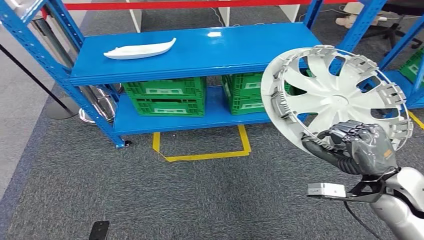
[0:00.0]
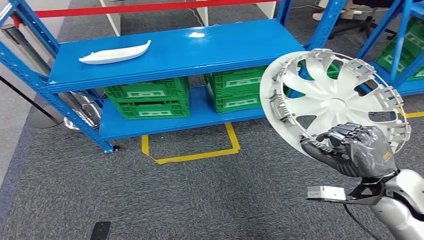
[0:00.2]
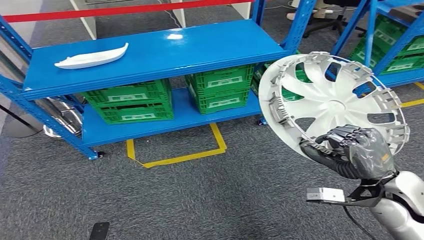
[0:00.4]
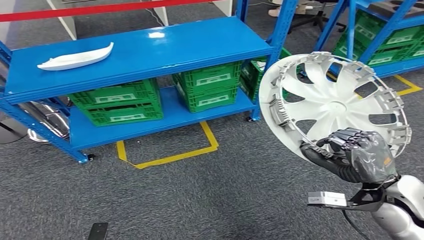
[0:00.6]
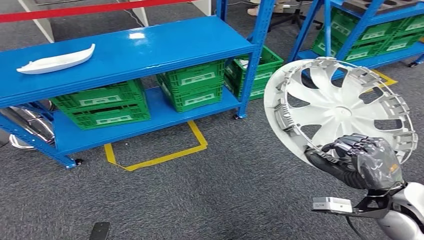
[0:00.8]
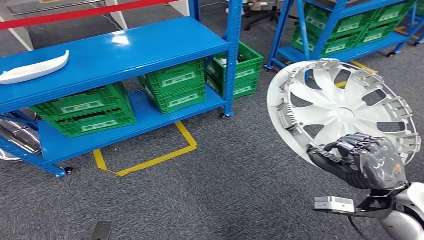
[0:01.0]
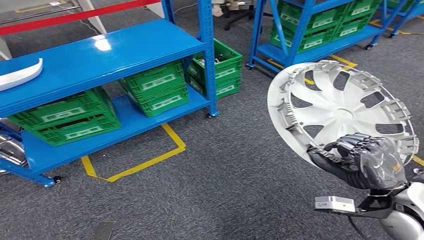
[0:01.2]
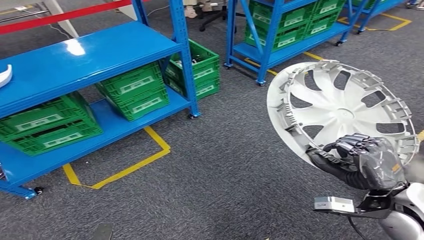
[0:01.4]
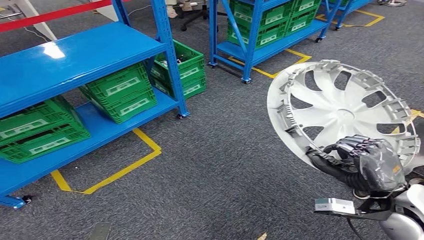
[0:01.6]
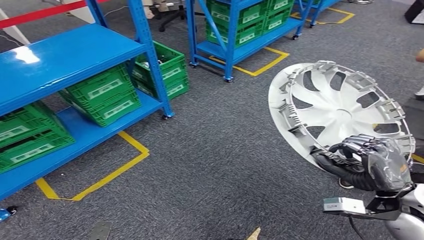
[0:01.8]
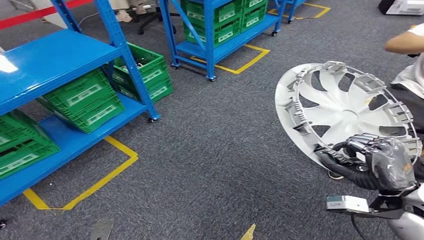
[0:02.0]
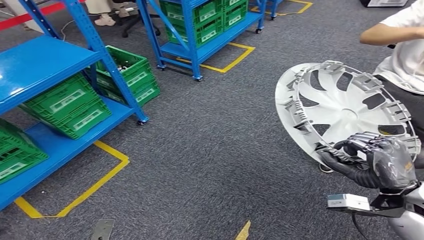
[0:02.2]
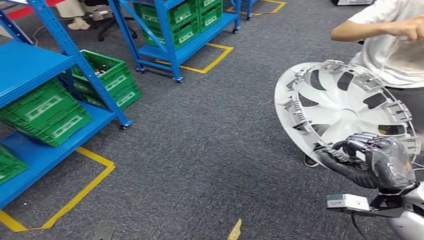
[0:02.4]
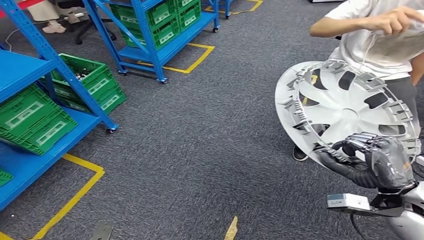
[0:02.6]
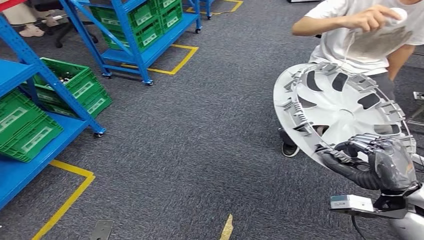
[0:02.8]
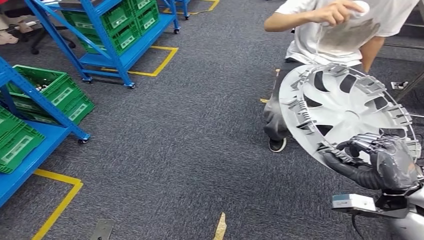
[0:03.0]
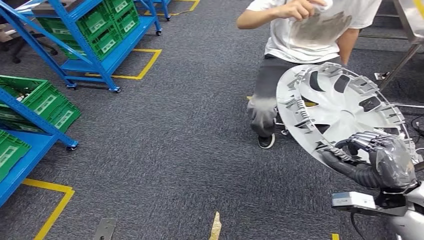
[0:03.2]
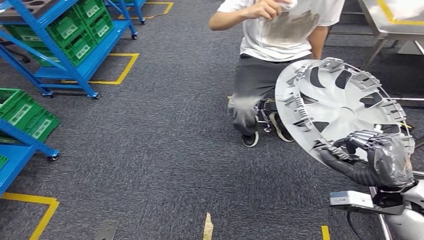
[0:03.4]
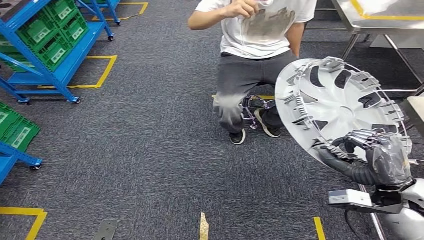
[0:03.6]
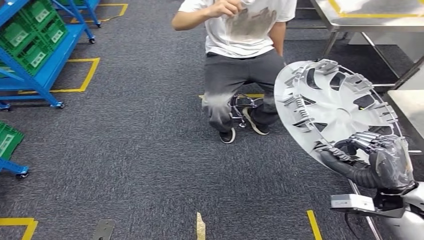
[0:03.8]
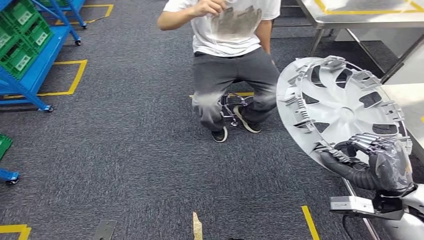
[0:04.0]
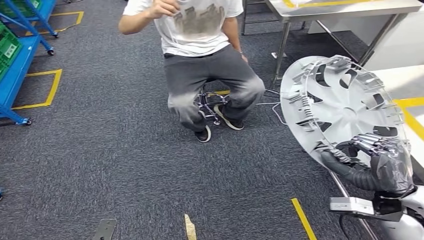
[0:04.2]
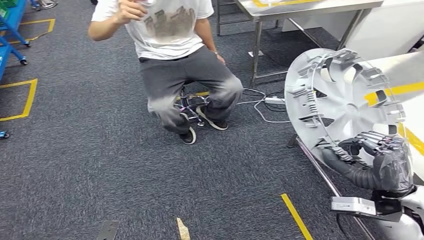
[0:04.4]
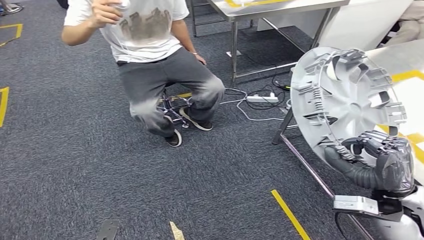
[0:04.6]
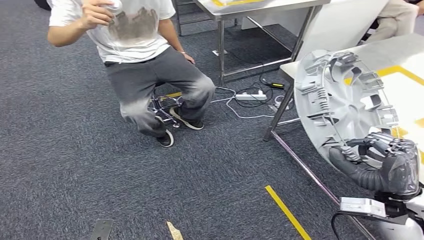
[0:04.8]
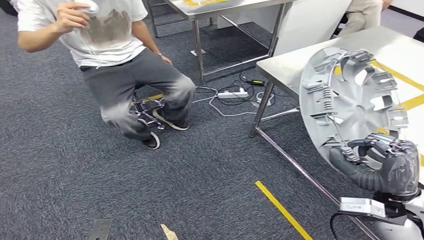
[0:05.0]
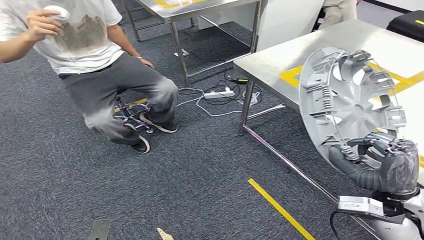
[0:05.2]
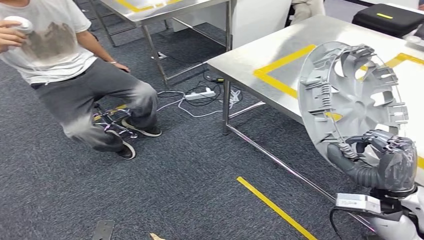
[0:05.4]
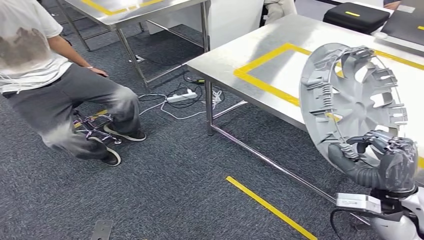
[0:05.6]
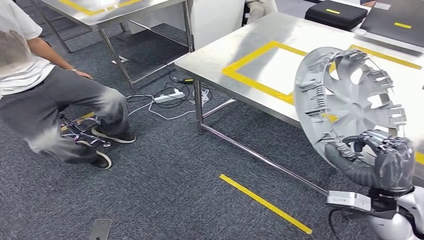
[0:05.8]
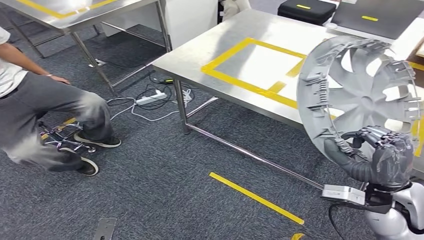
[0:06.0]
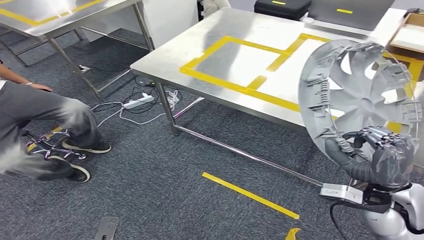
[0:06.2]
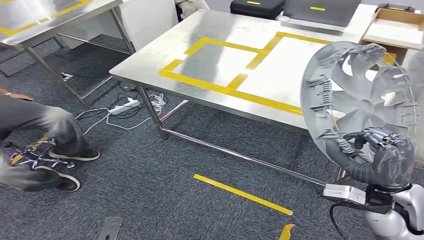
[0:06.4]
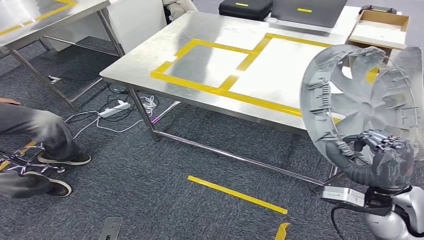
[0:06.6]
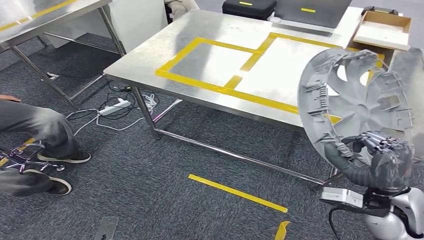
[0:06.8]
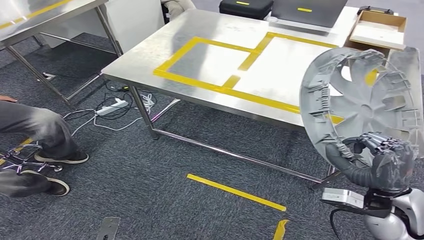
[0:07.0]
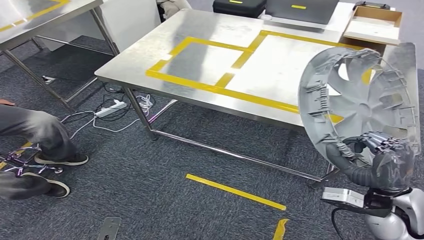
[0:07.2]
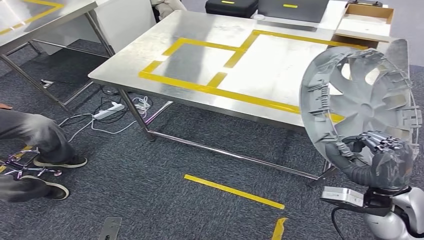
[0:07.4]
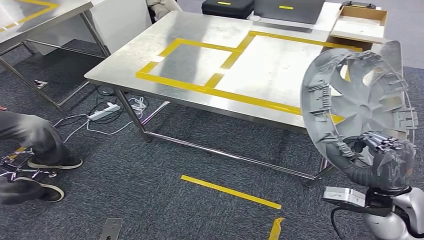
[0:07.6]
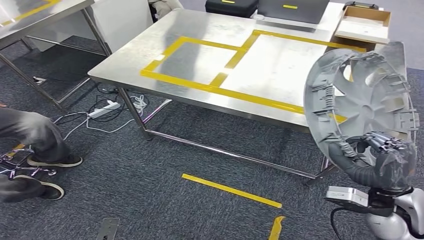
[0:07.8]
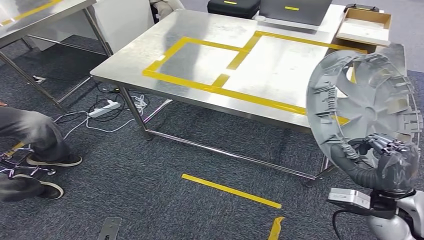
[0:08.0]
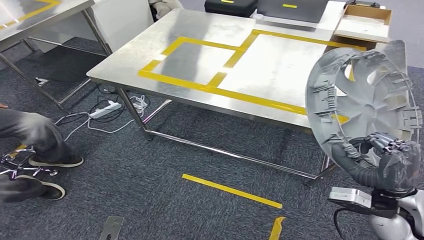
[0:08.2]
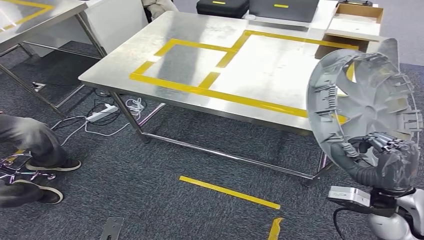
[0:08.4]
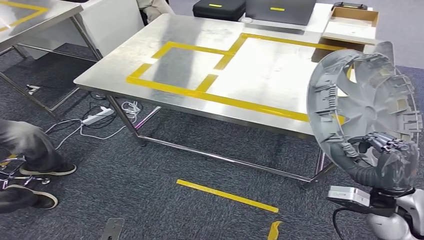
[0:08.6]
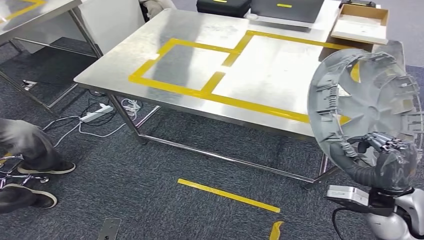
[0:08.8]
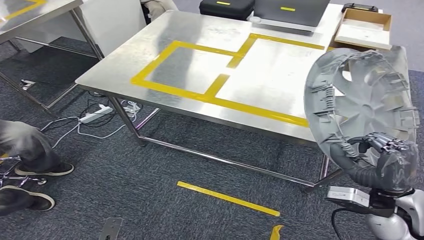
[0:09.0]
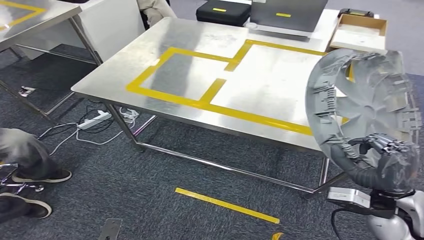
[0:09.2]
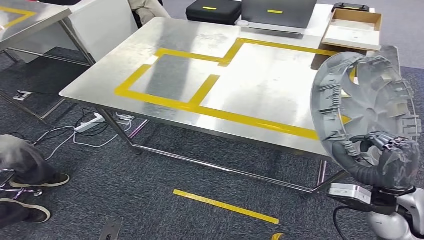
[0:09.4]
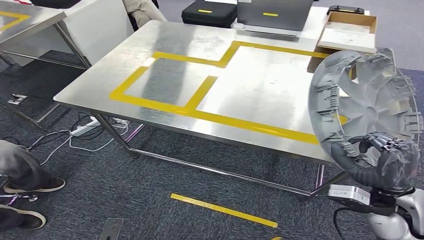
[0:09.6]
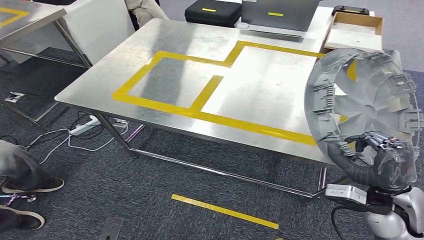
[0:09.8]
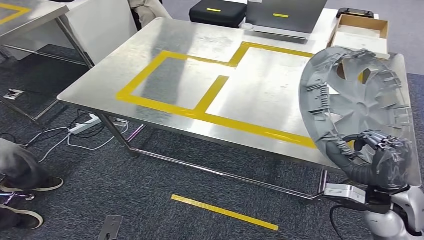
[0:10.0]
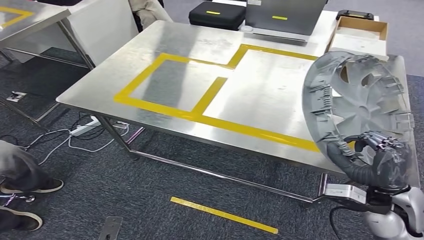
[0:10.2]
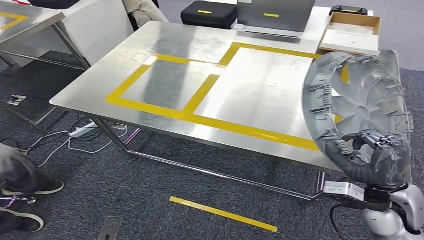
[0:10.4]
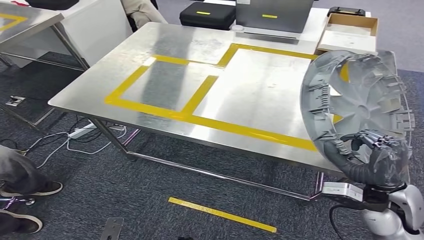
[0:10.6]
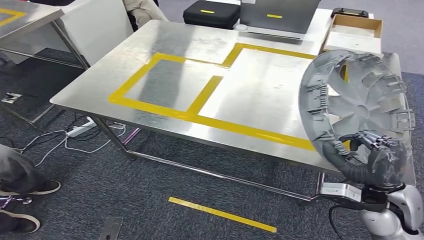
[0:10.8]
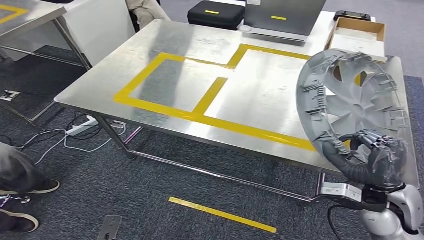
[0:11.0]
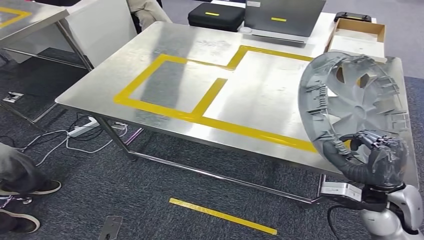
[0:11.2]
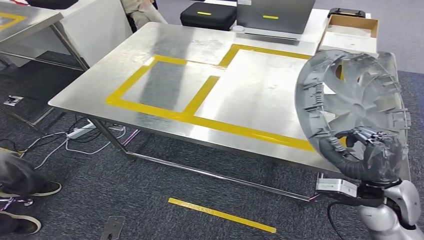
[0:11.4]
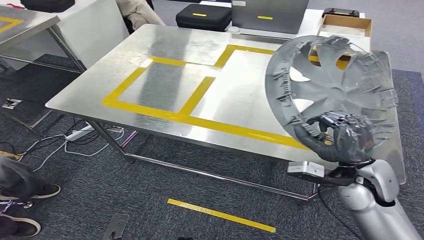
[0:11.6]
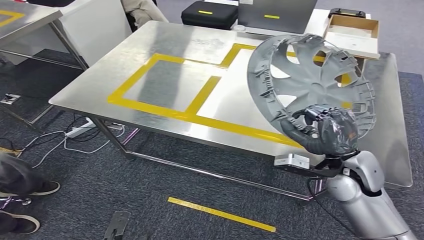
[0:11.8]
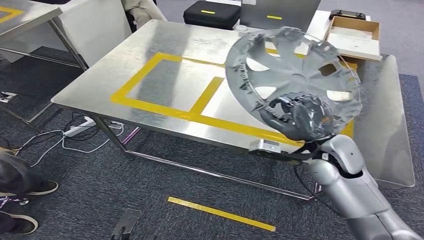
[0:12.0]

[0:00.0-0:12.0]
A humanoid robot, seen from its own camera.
Step, 0:00.0 to 0:08.4: Bring the small component to the front of the workbench.

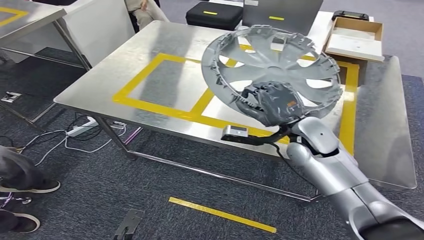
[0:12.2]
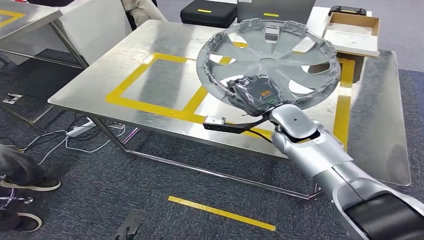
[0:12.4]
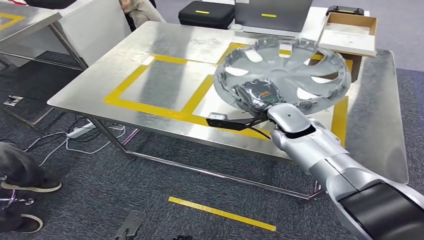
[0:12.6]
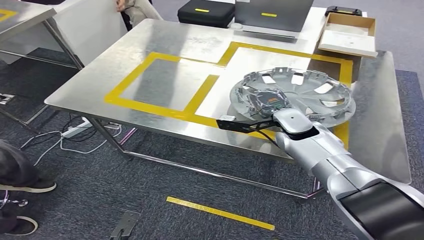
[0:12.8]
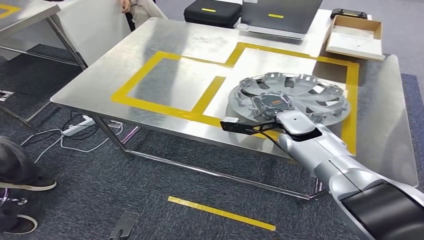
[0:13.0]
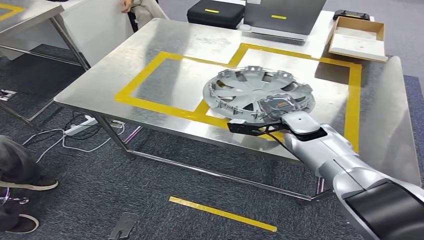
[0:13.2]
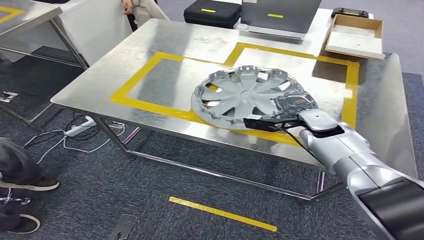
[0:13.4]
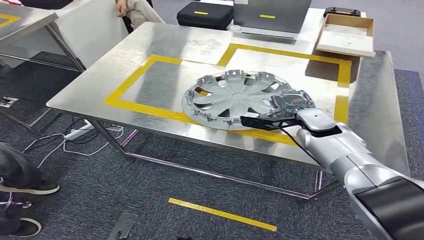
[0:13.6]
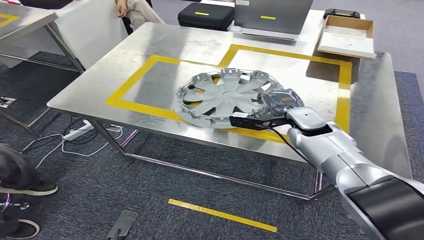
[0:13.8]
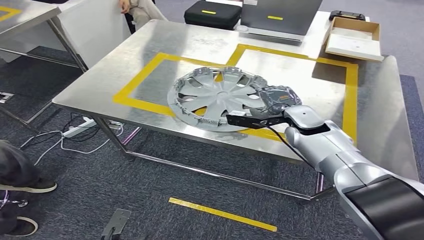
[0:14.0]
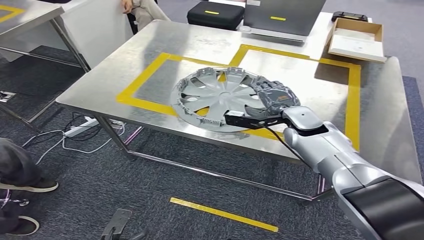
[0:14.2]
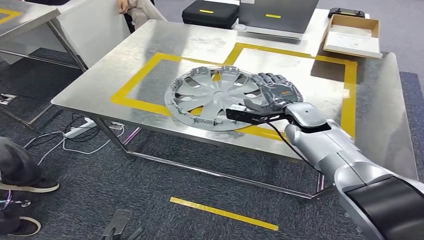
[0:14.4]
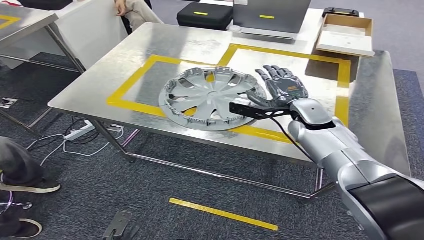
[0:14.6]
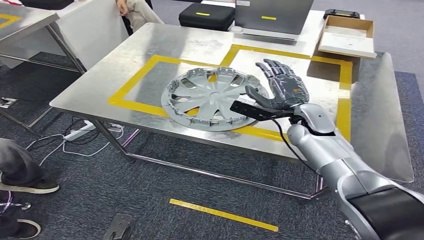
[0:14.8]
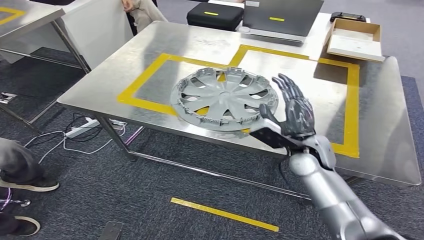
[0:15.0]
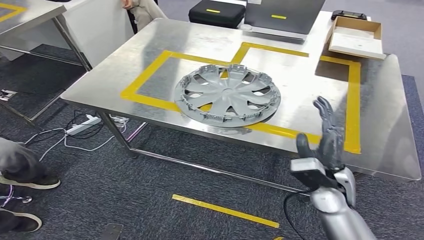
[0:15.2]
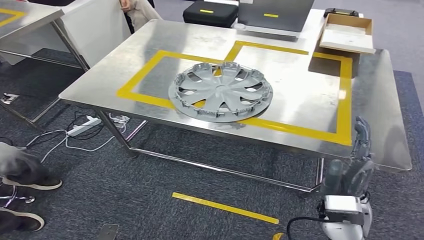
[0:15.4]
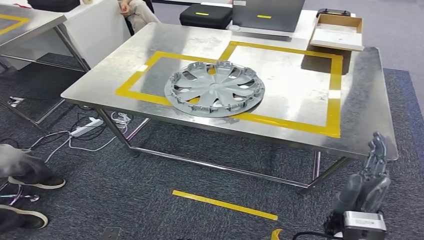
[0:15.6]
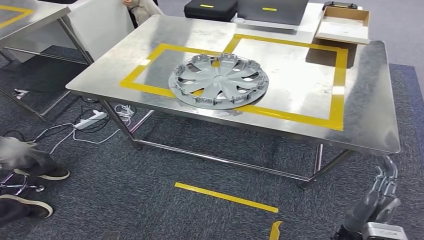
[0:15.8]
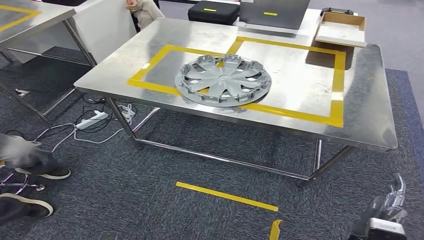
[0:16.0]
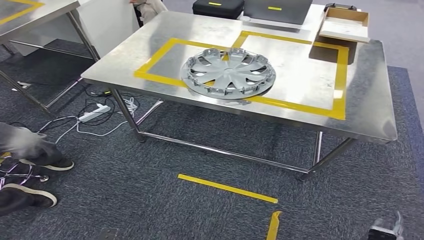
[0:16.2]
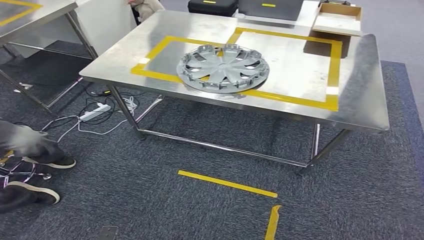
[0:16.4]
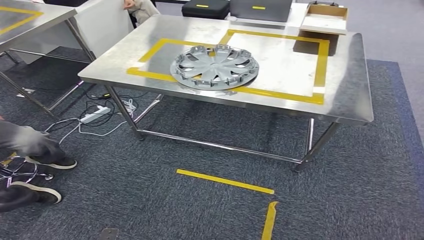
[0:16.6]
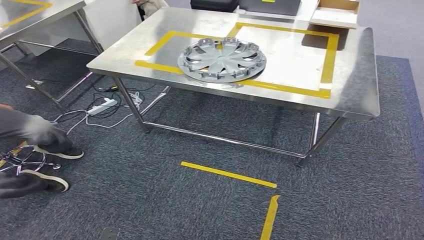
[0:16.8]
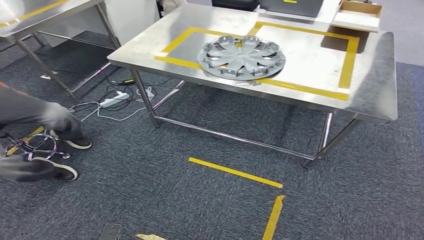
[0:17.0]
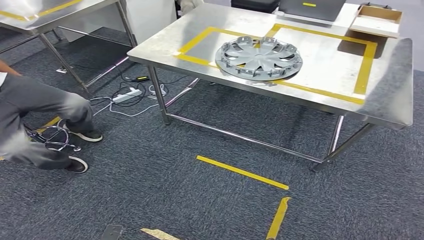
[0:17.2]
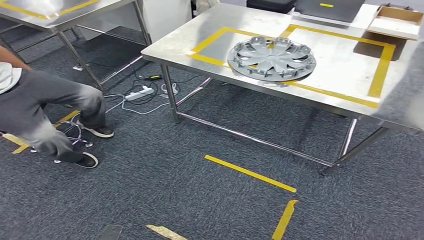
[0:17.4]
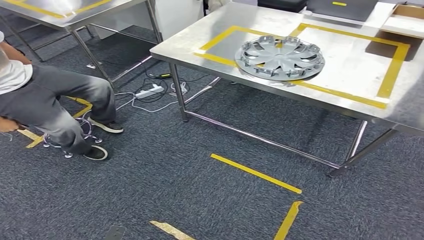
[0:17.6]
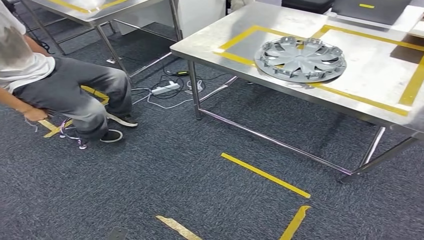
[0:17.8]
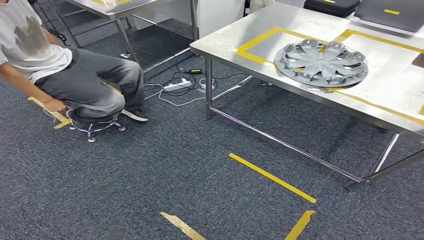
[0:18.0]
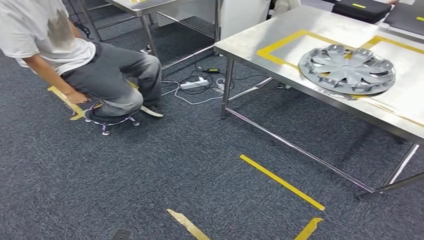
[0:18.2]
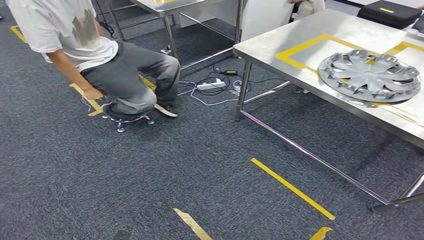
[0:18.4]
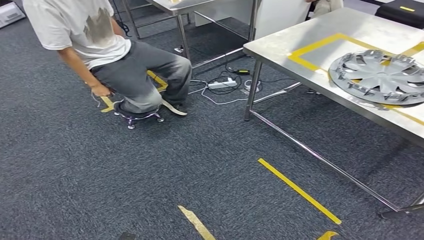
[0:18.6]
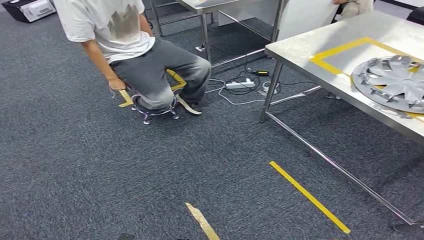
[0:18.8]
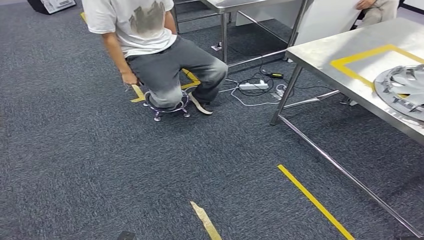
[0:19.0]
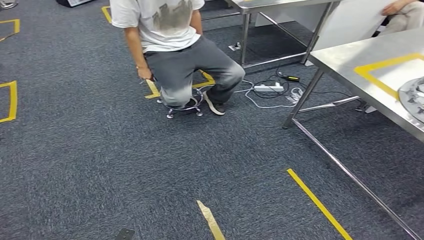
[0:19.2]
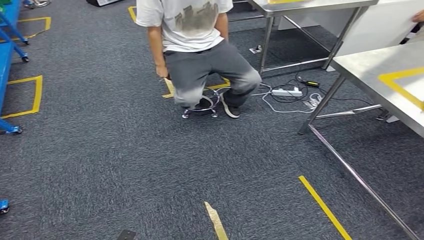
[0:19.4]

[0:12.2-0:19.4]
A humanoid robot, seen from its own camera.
Step, 0:12.2 to 0:16.6: Insert the small component into the corresponding slot on the workbench.
